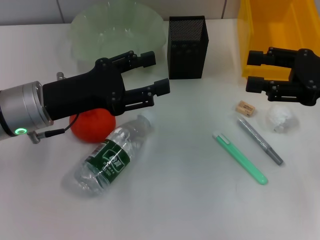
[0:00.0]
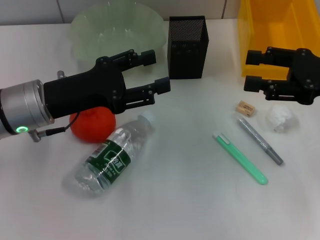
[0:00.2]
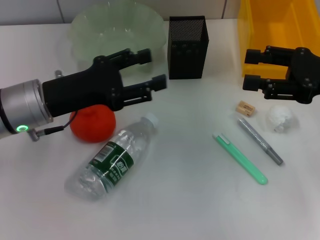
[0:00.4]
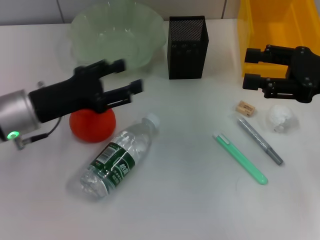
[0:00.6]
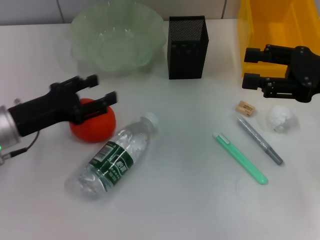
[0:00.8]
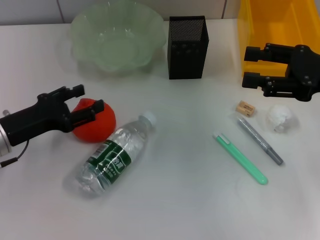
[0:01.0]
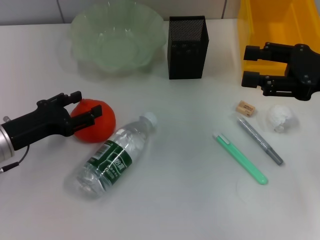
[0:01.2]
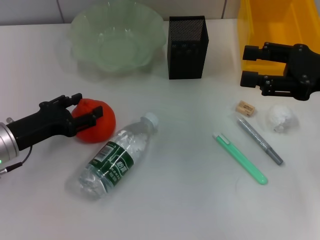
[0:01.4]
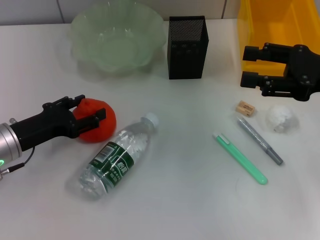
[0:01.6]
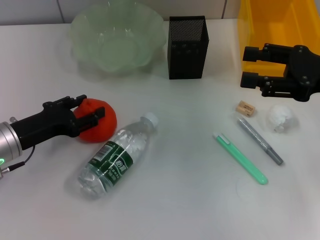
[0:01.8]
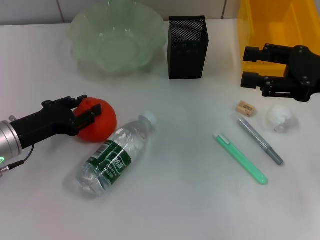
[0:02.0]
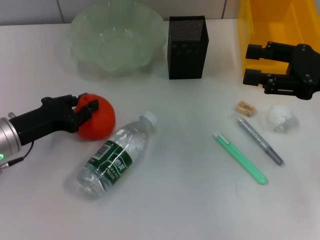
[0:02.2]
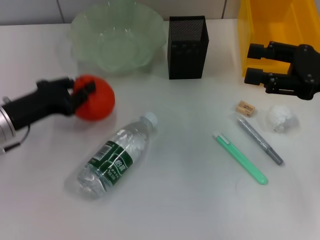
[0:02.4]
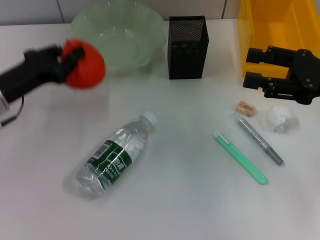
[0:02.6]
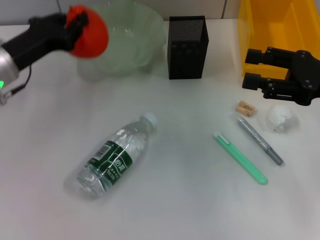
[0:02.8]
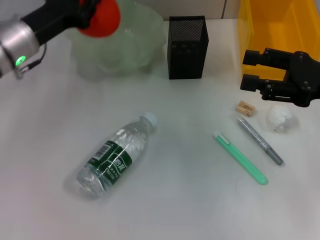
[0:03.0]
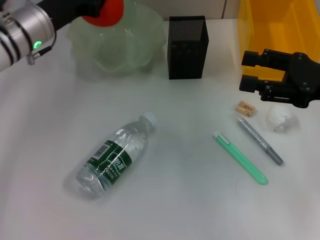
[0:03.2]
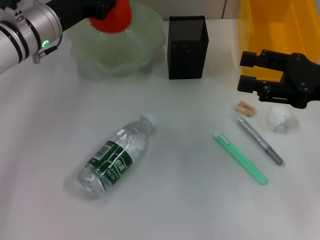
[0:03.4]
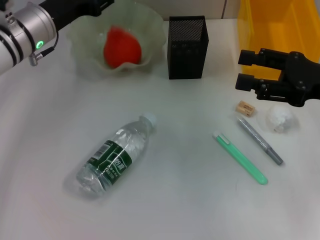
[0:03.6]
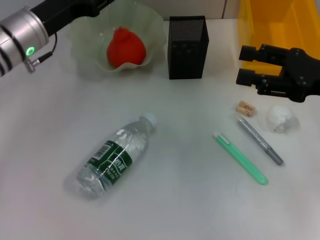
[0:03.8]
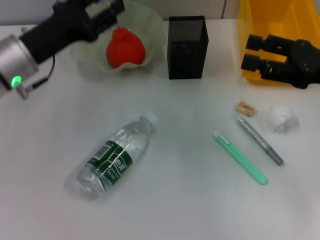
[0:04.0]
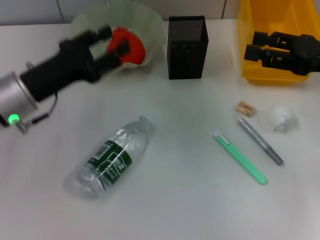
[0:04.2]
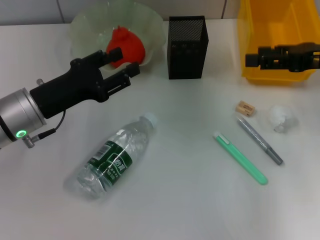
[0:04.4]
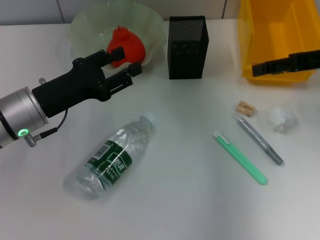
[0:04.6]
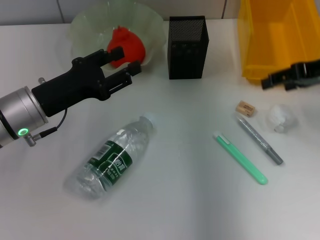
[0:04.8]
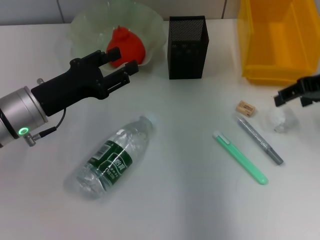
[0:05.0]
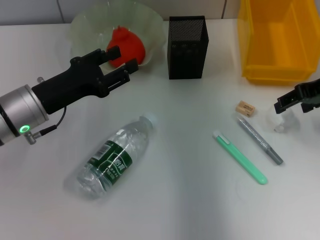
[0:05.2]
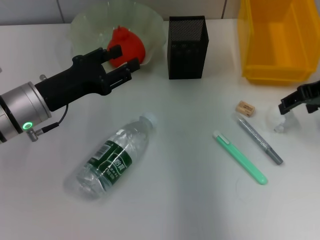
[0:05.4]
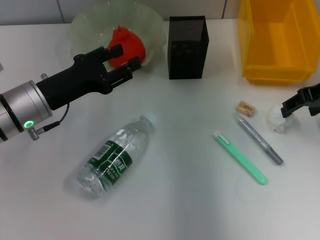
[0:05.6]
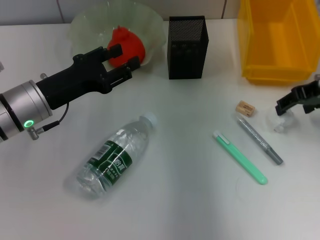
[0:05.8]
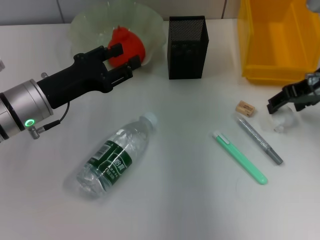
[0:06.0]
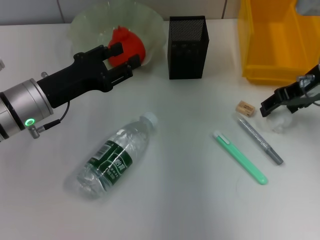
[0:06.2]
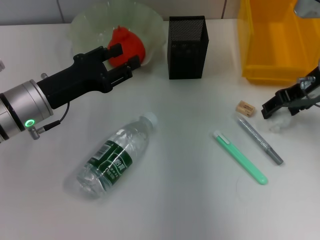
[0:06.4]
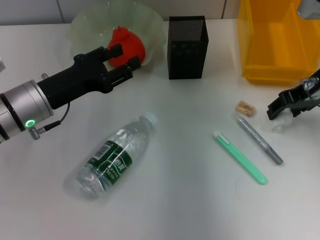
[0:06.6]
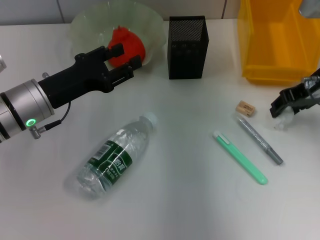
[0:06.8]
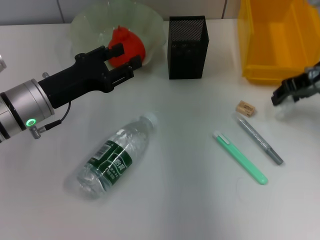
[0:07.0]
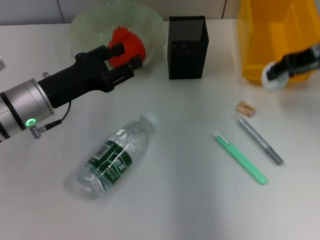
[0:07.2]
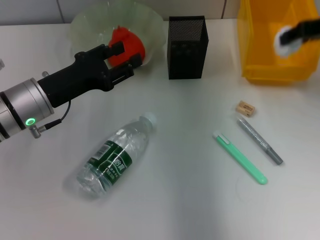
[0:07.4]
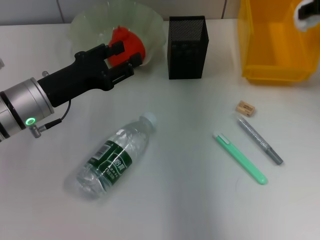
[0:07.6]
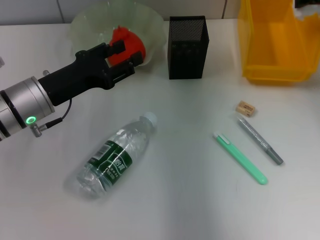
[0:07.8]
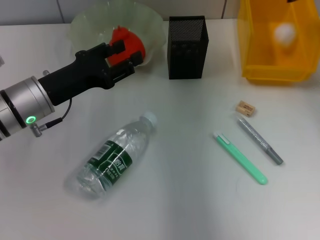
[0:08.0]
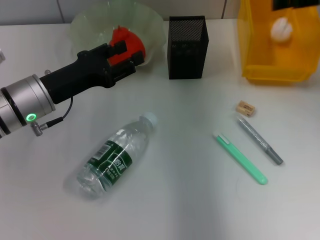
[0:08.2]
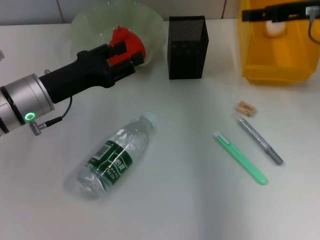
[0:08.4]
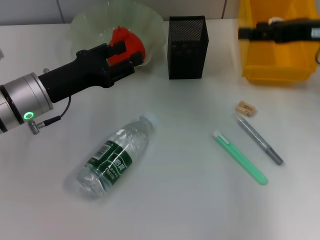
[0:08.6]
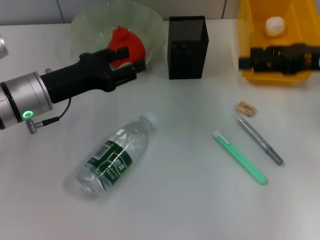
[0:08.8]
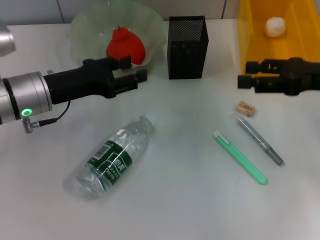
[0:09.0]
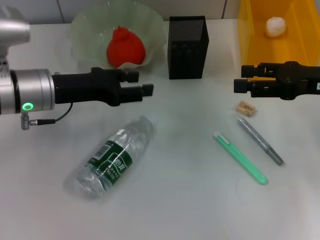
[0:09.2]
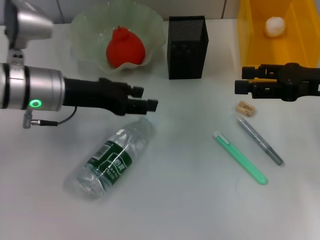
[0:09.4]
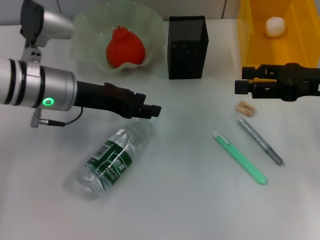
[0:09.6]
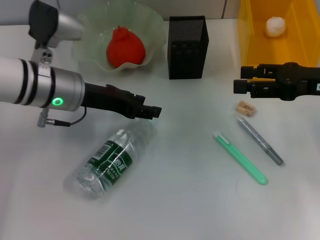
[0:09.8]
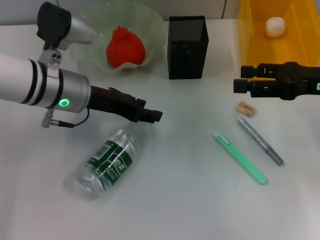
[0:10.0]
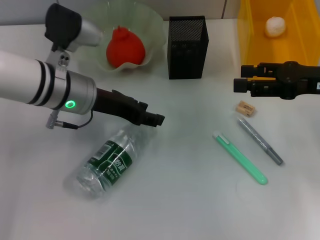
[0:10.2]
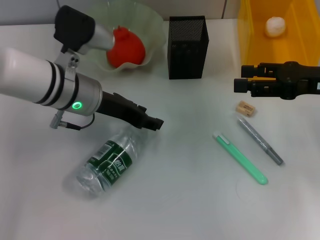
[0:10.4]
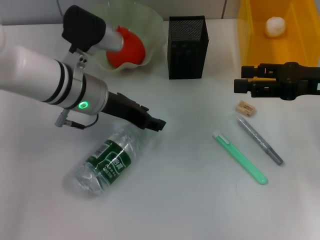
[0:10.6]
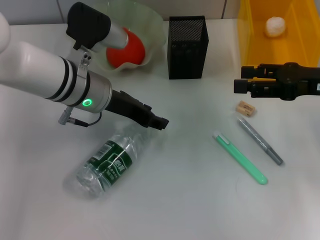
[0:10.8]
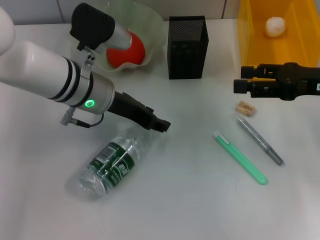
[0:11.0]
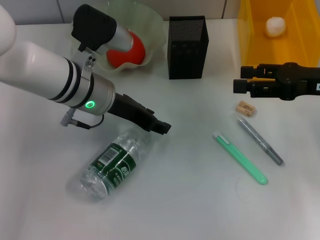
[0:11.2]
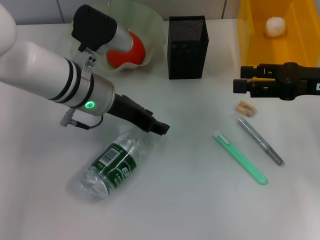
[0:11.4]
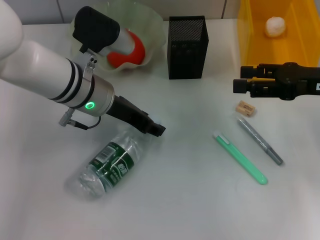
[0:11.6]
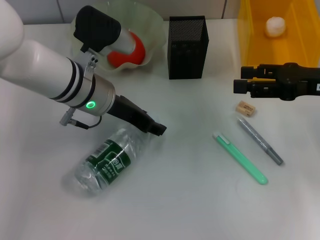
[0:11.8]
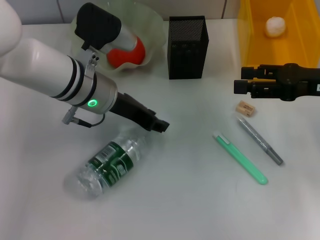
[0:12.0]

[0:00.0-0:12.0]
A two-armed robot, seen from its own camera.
Step, 0.0 to 2.2 s: Grab the orange with the left hand.
Step, 2.4 to 3.6 s: Place the orange into the fruit bowl with the left hand.
Step, 4.0 to 6.6 s: Grab the paper ball with the right hand.
Step, 7.0 to 8.2 s: Place the paper ball into the trash can with the right hand.
0.0 to 1.6 s: The left gripper shifts about 10 cm downward and to the left.
1.6 to 3.0 s: The left gripper goes about 15 cm forward and upward, and closes its fingers.
3.0 to 4.4 s: The right gripper shifts by some 5 cm; the left gripper travels backward by roughly 10 cm, and opens its fingers.
4.4 to 6.0 s: The right gripper ends up about 5 cm from where it was.
6.0 to 7.6 s: The right gripper travels upward by some 10 cm, and closes its fingers.
7.6 to 9.0 s: The right gripper is displaced downward and backward by approximately 10 cm, and opens its fingers.
9.0 to 10.4 s: The left gripper heads to the right, covering approximately 5 cm.
10.4 to 12.0 s: The grippers move only a little.

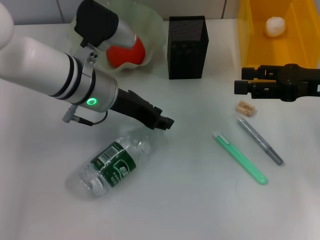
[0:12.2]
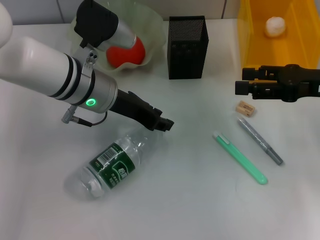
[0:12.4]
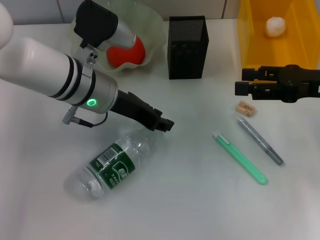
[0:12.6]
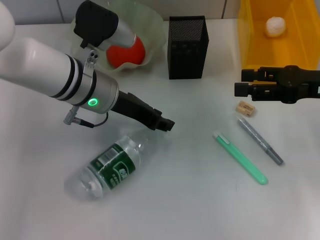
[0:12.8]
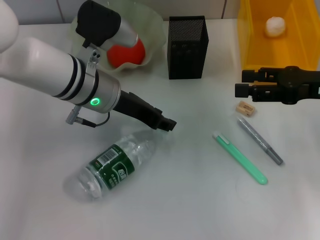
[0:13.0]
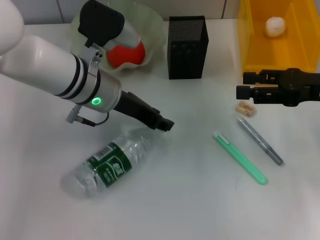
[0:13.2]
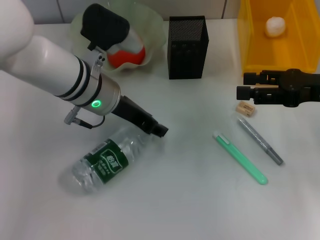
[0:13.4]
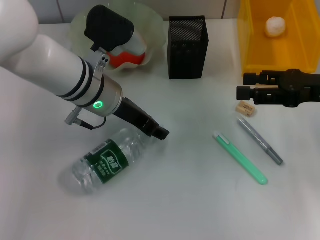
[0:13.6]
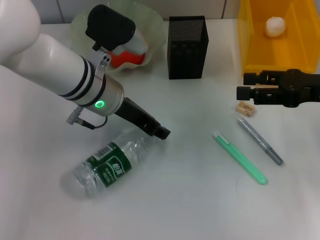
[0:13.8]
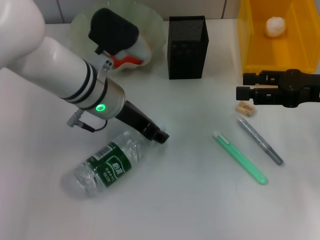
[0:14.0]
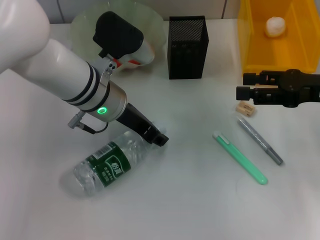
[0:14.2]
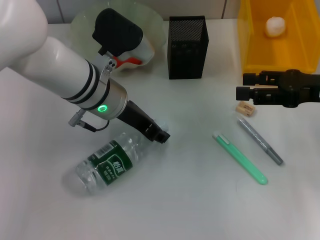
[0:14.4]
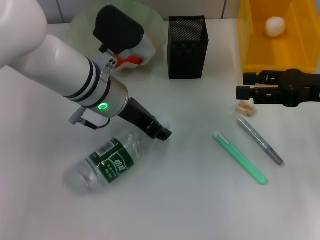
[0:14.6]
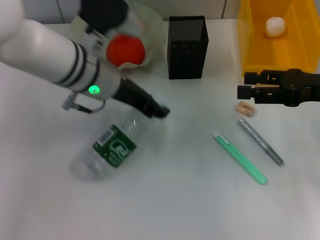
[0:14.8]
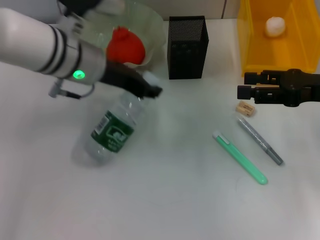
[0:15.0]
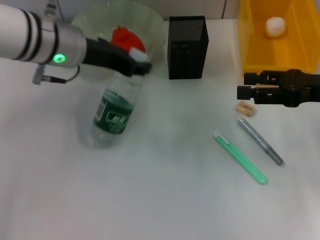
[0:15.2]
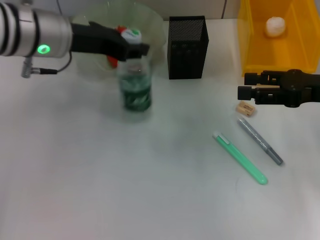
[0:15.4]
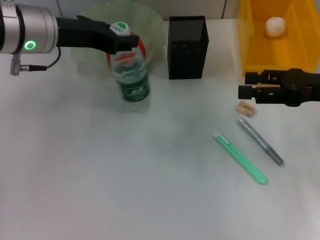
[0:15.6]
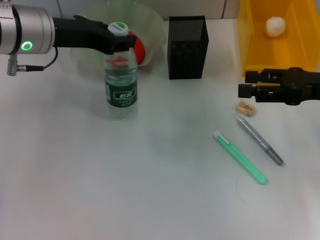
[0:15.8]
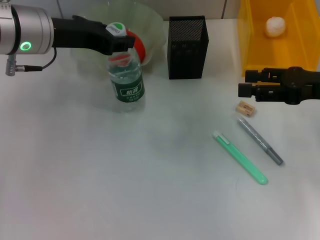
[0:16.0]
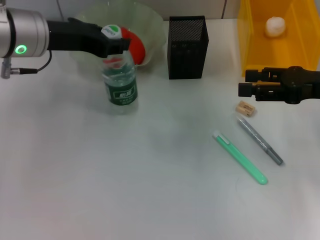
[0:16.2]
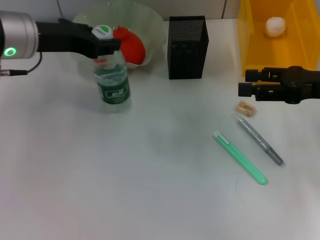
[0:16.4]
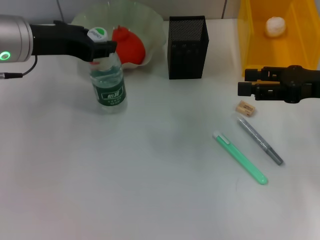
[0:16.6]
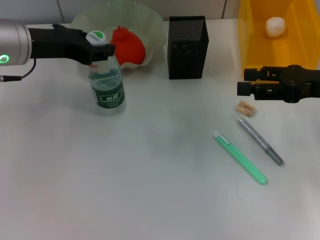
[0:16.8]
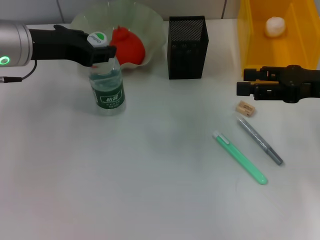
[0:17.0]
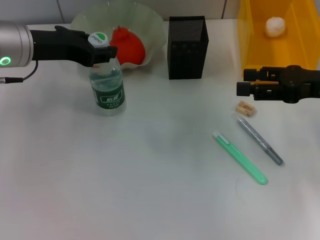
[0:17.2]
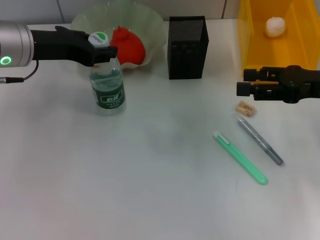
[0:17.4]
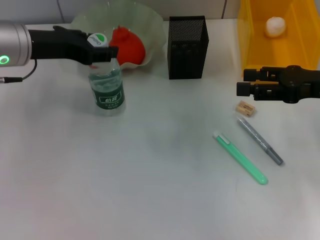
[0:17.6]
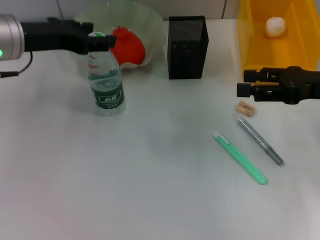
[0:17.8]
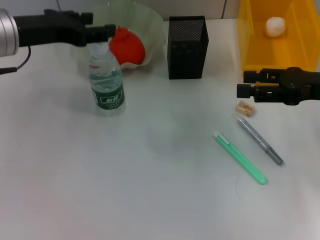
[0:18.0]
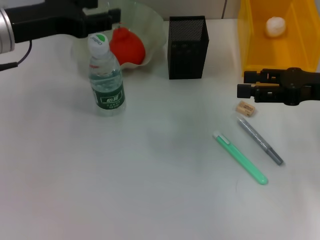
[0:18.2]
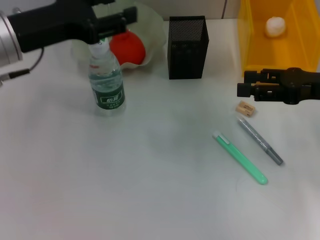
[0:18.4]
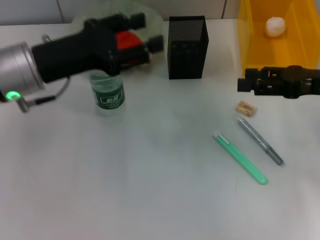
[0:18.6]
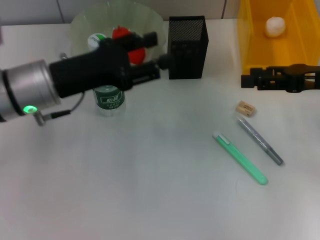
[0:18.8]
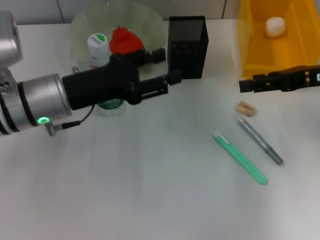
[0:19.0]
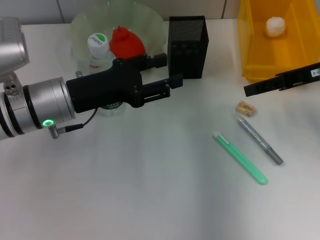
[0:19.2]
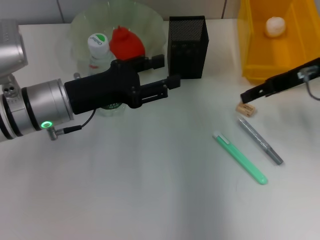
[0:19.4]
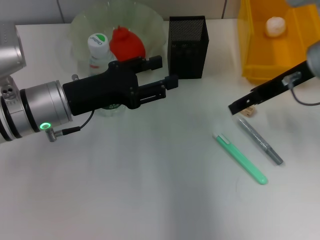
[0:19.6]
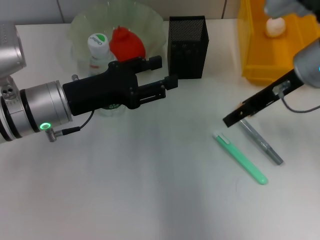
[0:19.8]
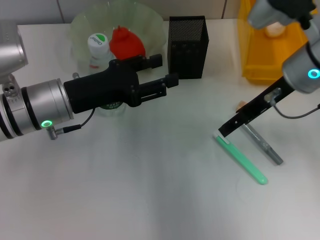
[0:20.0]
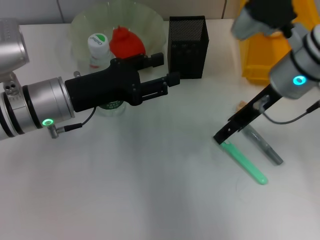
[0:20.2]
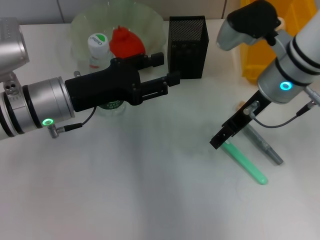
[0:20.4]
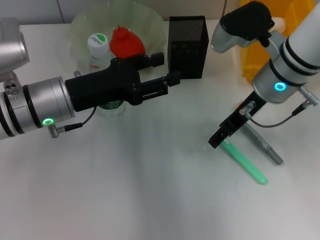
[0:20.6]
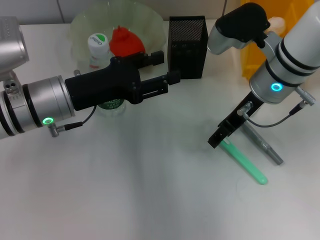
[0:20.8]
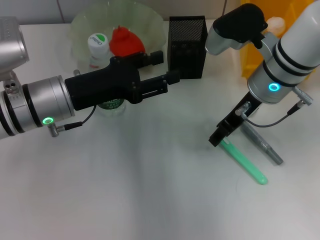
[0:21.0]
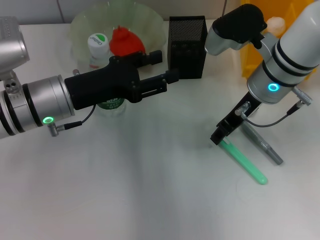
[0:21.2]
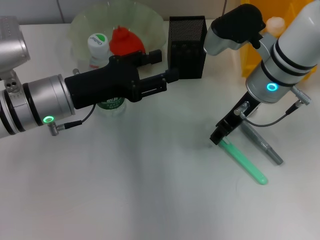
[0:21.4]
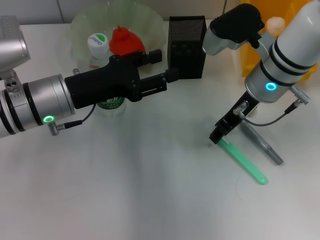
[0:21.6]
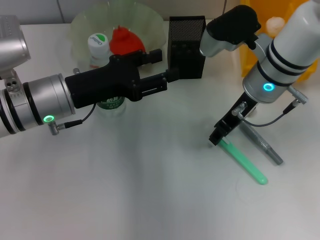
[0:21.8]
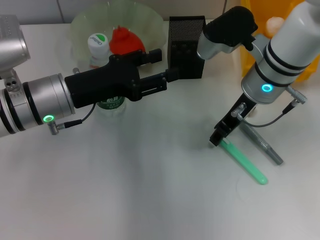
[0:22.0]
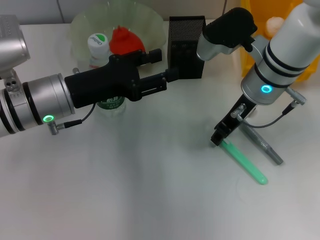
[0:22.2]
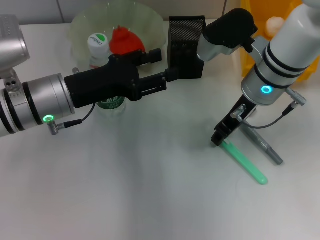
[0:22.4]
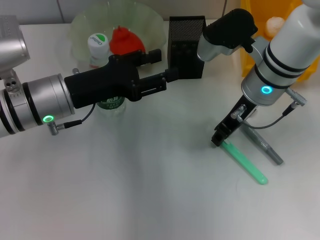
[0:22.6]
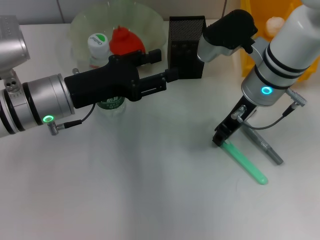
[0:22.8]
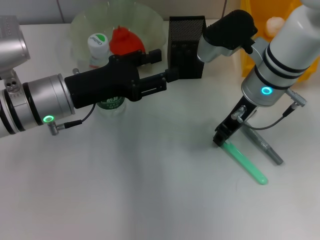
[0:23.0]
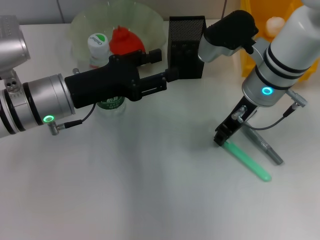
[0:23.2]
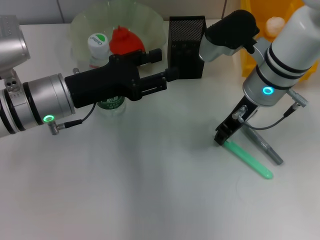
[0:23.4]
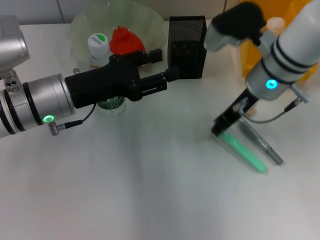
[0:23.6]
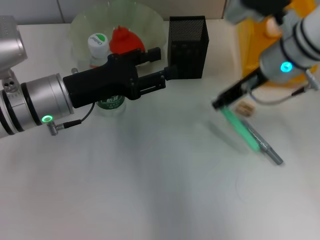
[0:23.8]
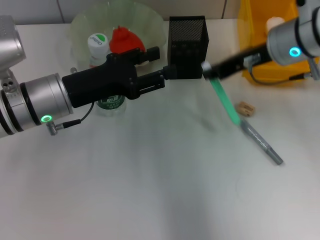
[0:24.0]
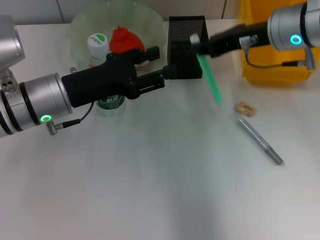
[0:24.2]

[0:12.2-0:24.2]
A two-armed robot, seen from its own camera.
Step, 12.2 to 14.2 s: Grab the water bottle with the left hand.
Step, 14.4 to 17.4 s: Place the water bottle on the table with the left hand.
Step, 17.6 to 23.4 s: Grab the blue utility knife with the right hand.
12.2 to 13.8 s: The grippers make only small movements.
13.8 to 15.2 s: The left gripper travels upward by about 5 cm.
15.2 to 16.6 s: The left gripper moves to the left, roughly 5 cm.
16.6 to 18.2 s: The grippers move only a little.
18.2 to 19.8 s: The right gripper travels to the left by roughly 10 cm. The left gripper travels downward by approximately 10 cm.
19.8 to 21.2 s: The right gripper shifts some 5 cm to the left.
21.2 to 22.6 s: The right gripper closes its fingers.
22.6 to 24.2 s: The right gripper travels upward by about 5 cm.
